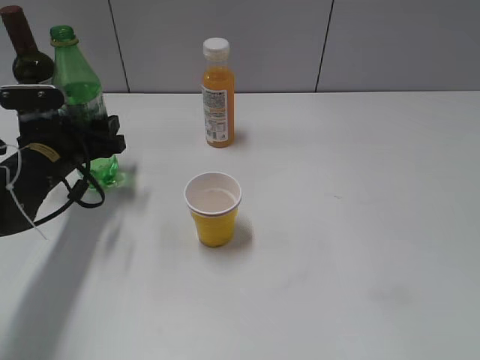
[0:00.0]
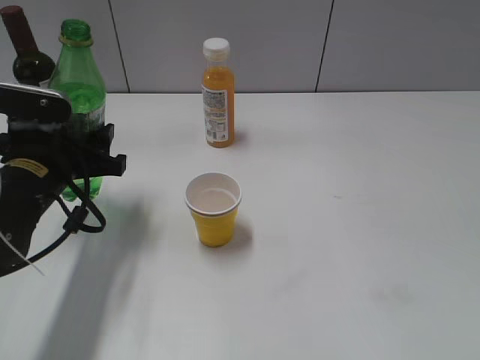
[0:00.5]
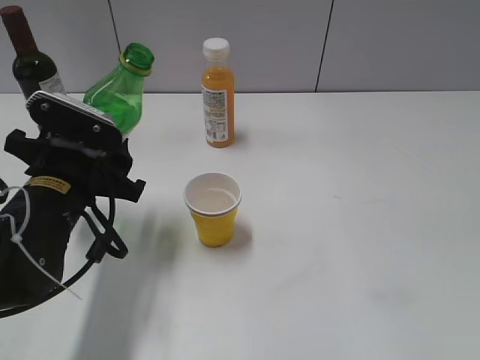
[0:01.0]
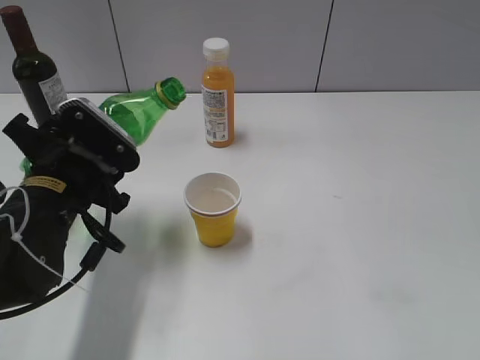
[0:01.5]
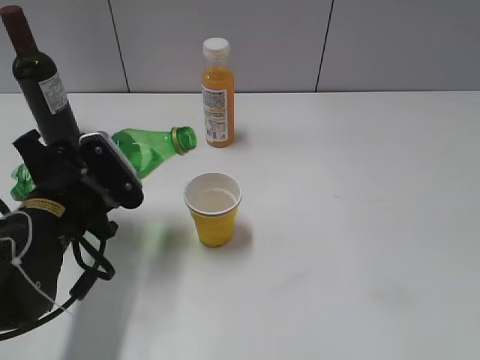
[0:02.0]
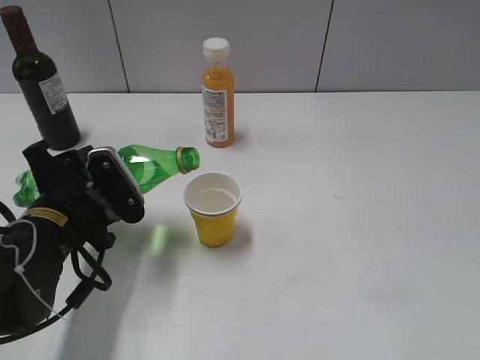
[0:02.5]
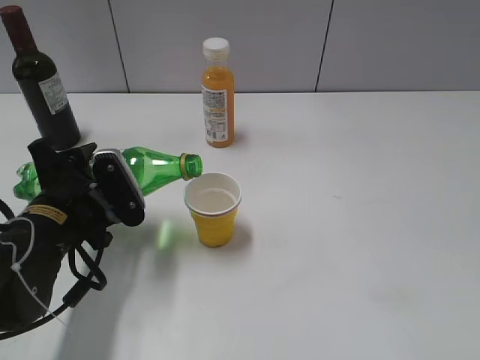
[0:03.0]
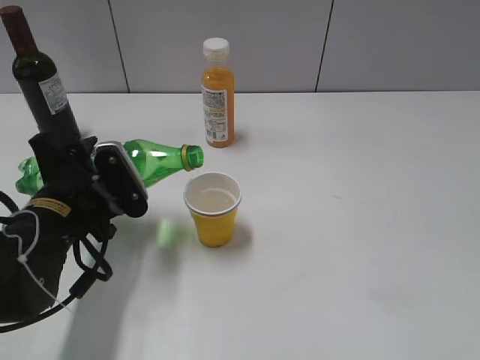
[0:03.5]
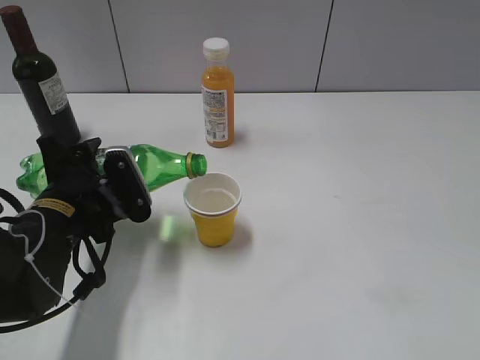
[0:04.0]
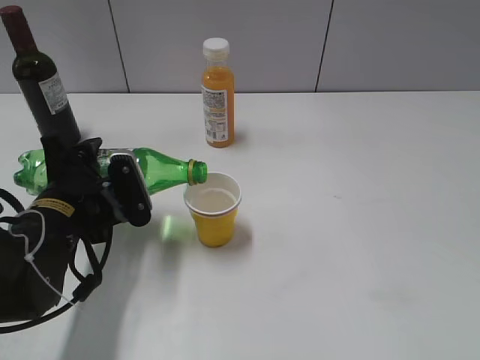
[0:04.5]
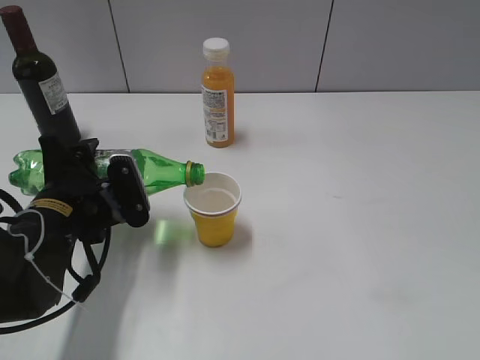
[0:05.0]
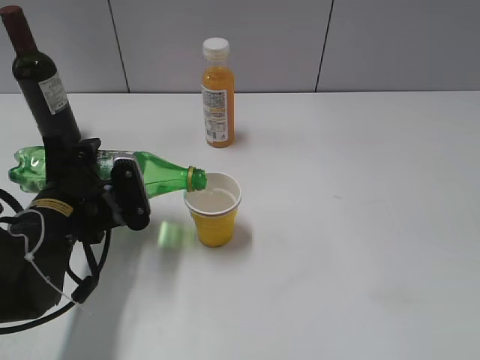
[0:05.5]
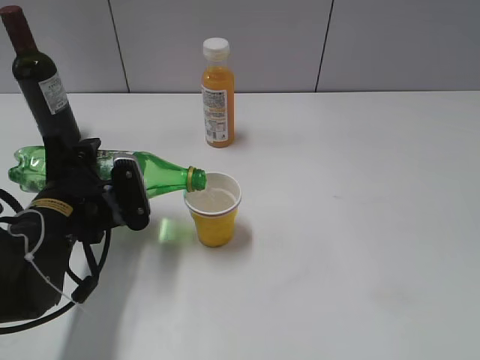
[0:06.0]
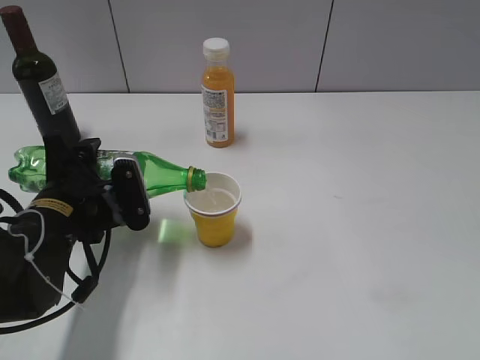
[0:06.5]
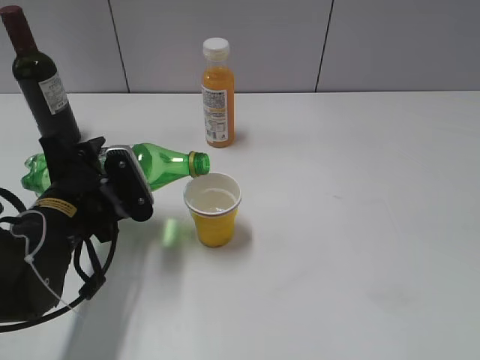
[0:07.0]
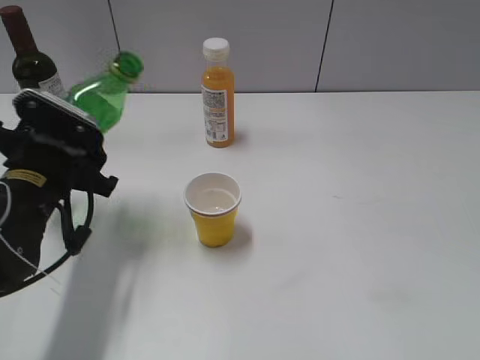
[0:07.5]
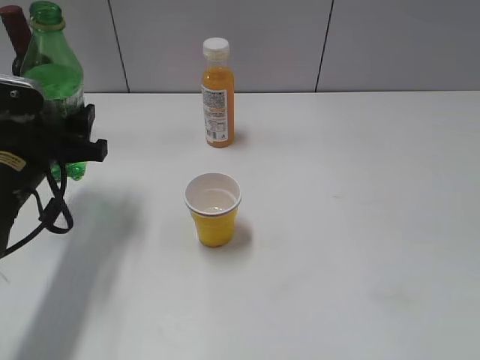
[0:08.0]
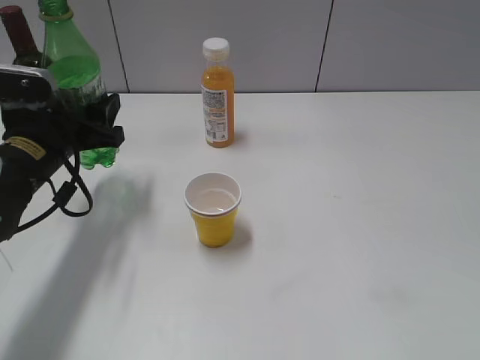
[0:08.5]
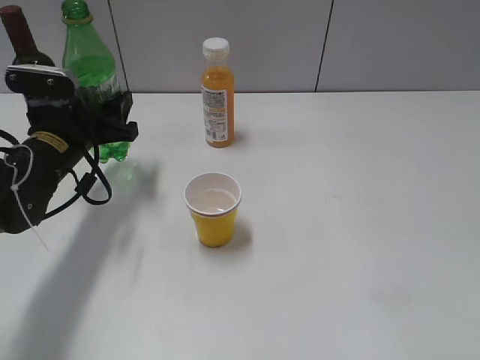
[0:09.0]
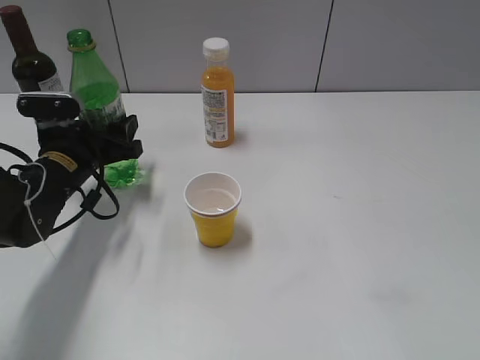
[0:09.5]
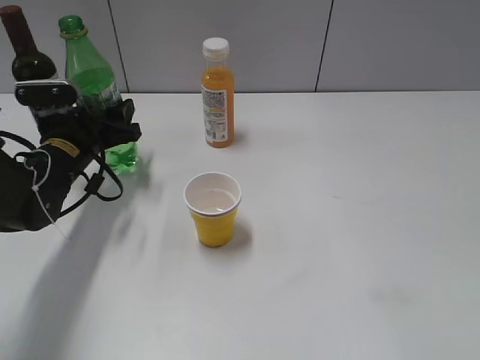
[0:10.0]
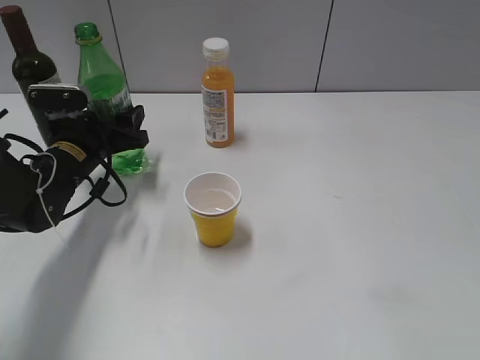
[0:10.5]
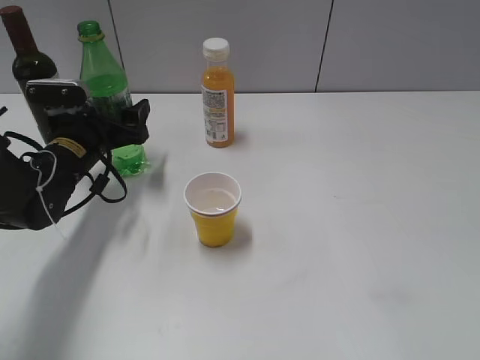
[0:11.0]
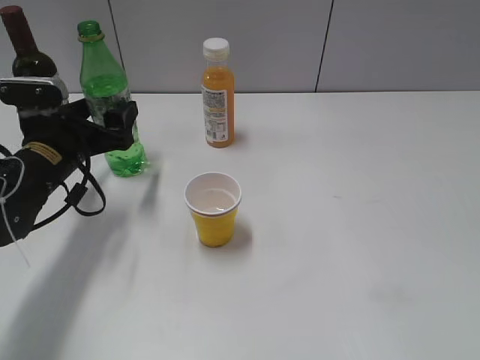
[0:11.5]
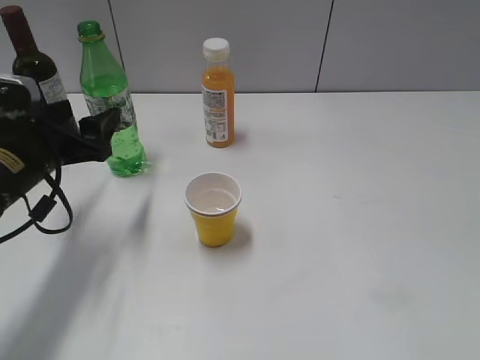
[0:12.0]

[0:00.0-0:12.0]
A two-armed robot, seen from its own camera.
Step, 0:00.0 to 0:07.0: Pour the sprite from bottle to cup with left gripper.
Step, 0:07.5 to 0:11.5: Place the sprite bottle on the table with left gripper.
0:00.0 to 0:02.0: The left gripper is displaced backward by about 10 cm.
0:02.0 to 0:04.0: The grippers stay close to where they were, moving slightly.
0:04.0 to 0:06.0: The grippers make only small movements.
0:06.0 to 0:08.0: The left gripper changes place by roughly 5 cm.
0:08.0 to 0:10.0: The left gripper heads forward and downward, covering roughly 10 cm.
0:10.0 to 0:12.0: The left gripper shifts approximately 10 cm backward and upward, and opens up.

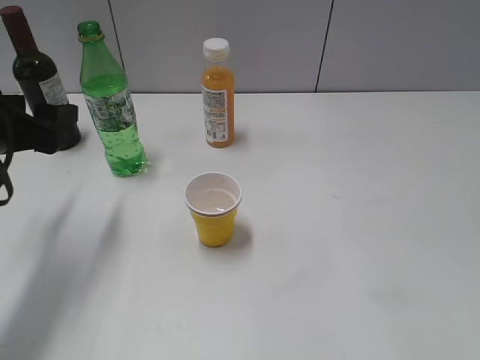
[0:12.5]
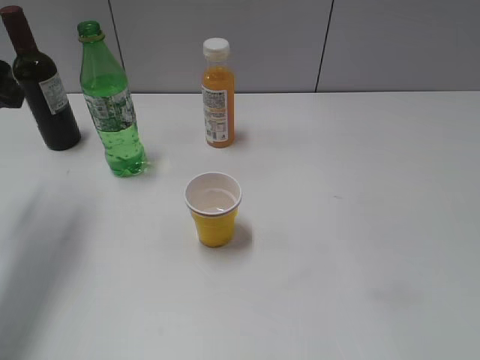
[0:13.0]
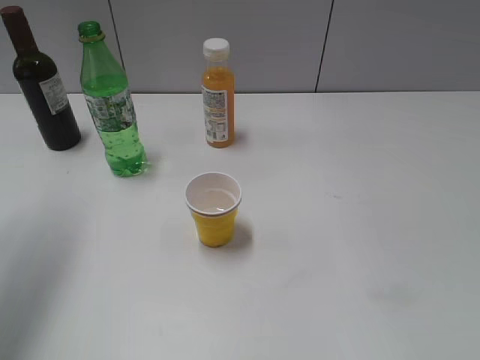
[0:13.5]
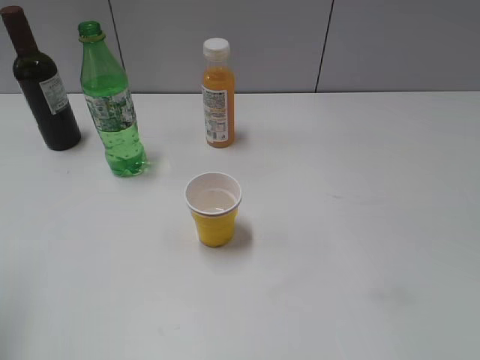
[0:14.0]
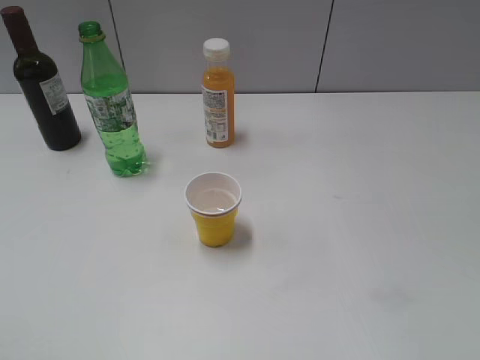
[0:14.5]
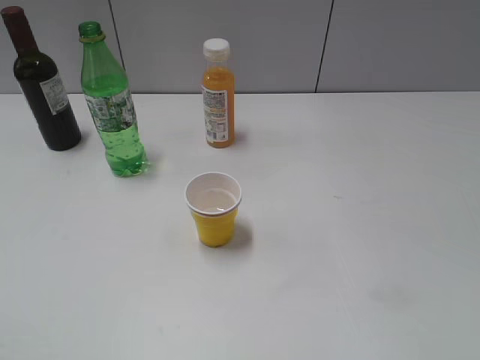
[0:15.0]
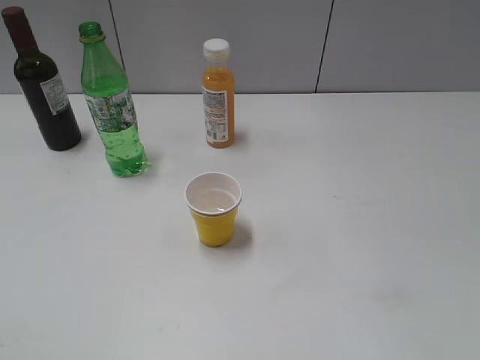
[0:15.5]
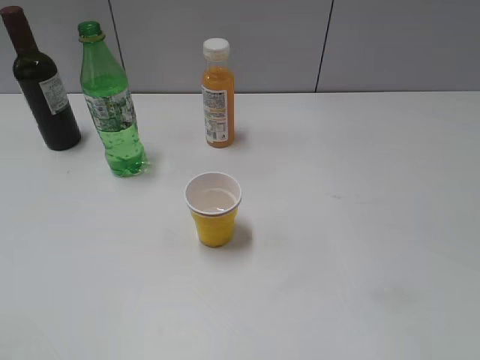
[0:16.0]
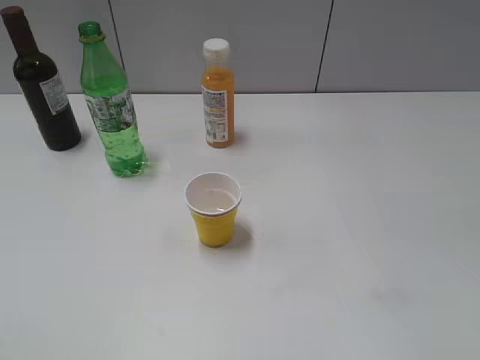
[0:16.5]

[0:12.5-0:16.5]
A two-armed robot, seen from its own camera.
0:12.5 to 0:14.5: The left gripper travels backward and upward by some 25 cm.

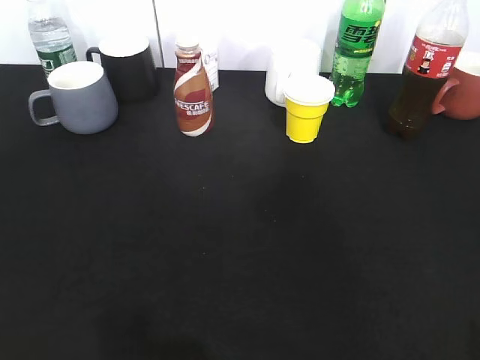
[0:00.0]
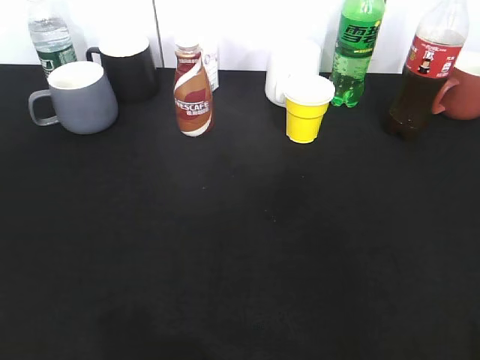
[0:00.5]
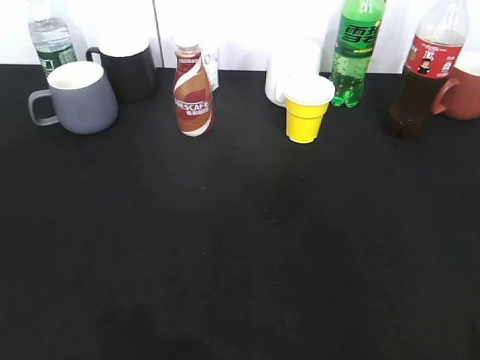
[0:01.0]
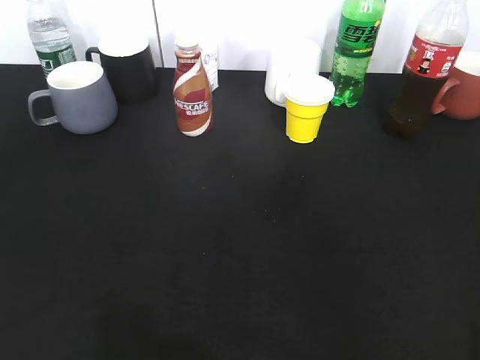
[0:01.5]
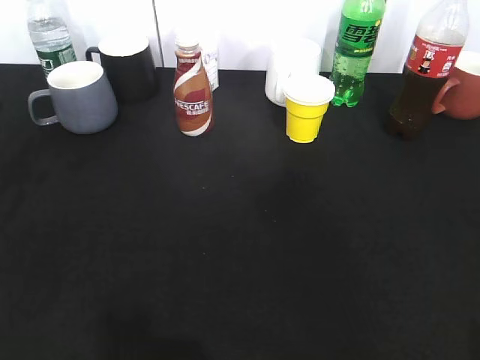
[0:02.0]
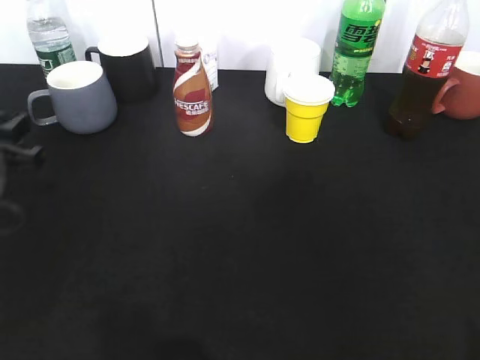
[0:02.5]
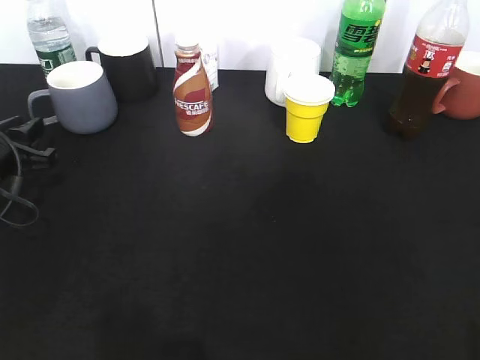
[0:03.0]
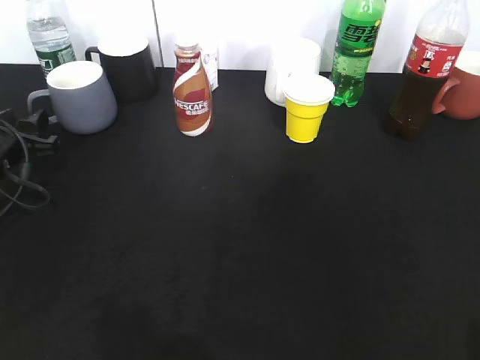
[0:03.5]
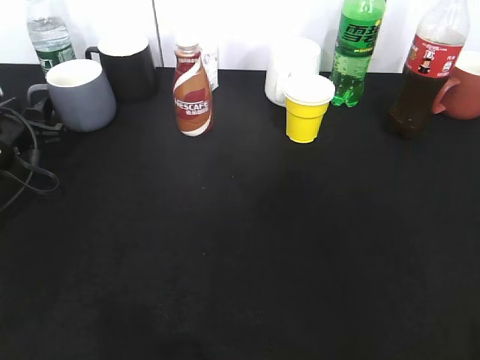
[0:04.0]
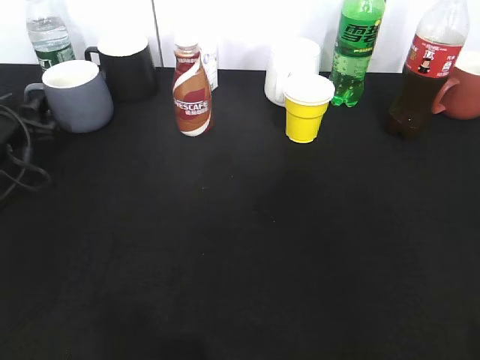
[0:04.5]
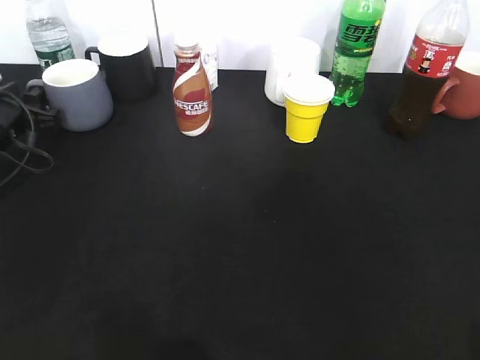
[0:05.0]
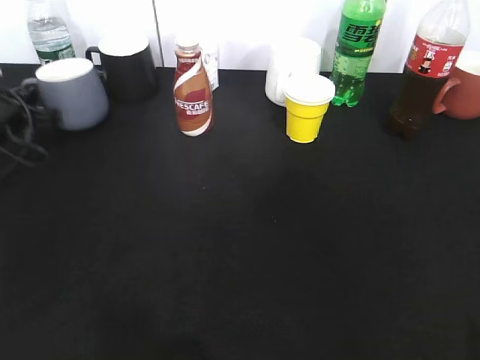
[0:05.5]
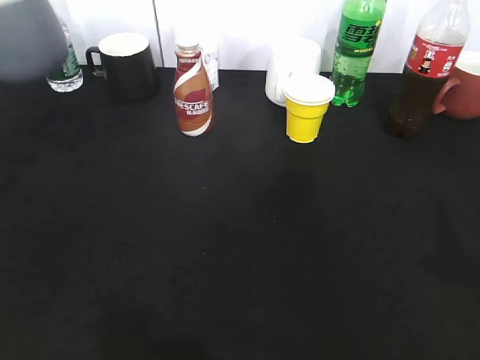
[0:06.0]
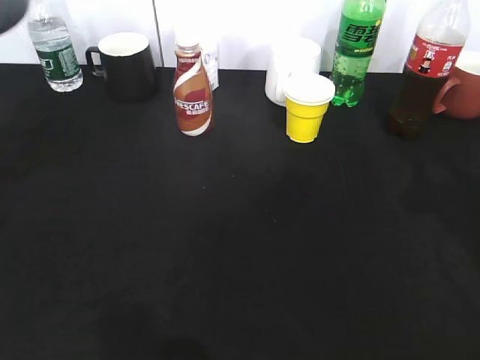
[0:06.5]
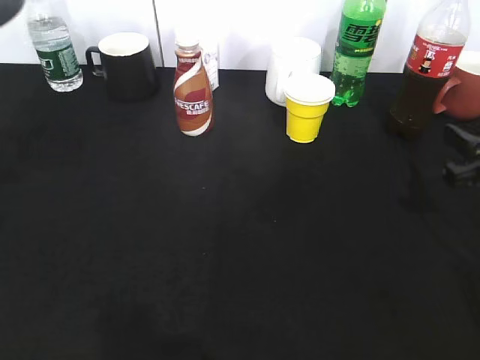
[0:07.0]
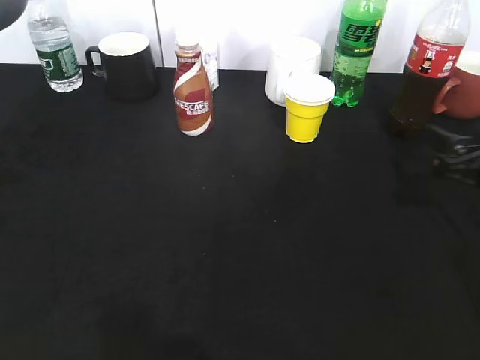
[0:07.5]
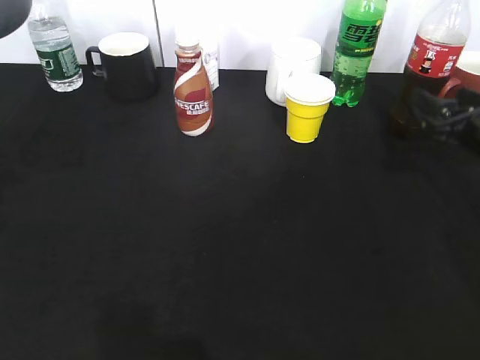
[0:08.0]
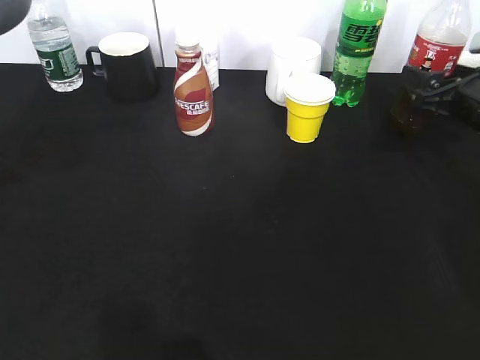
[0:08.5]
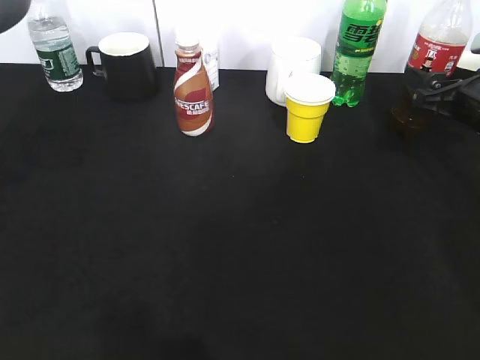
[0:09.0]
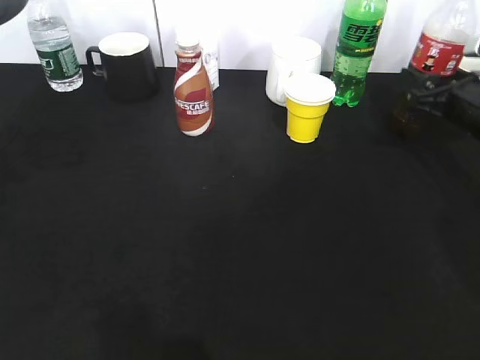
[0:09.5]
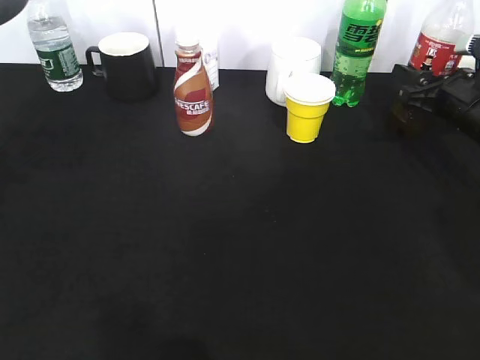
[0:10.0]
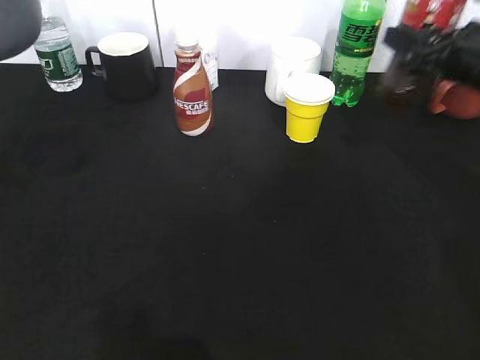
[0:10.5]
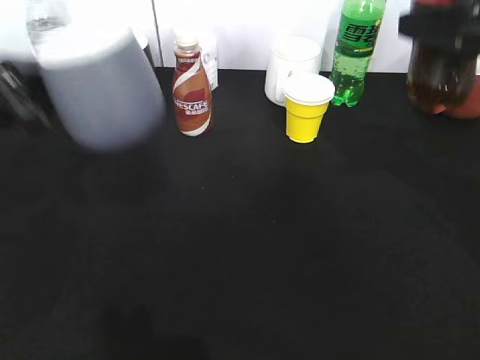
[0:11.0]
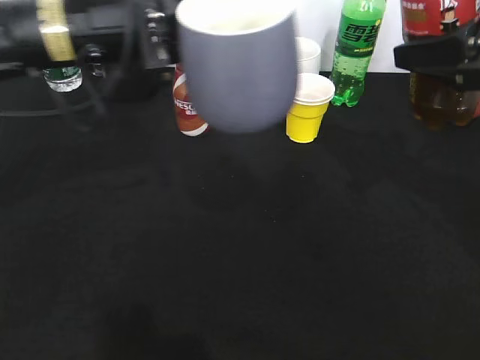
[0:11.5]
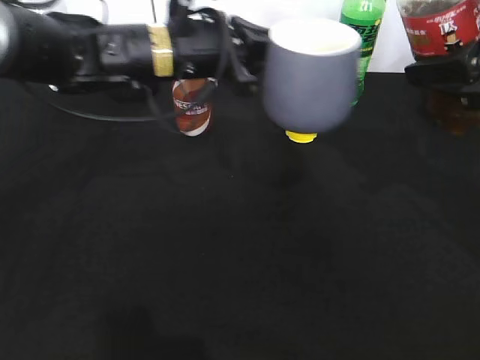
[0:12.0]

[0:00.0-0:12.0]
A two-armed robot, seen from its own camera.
Step, 0:01.5 to 0:05.5: Grasp the grey cup with left gripper.
Step, 0:06.5 to 0:09.0: Grasp the bottle with cola with right gripper.
0:02.0 to 0:04.0: The left gripper is displaced downward and forward by roughly 15 cm.
0:04.0 to 0:06.0: The left gripper is displaced upward and backward by some 20 cm, and closes its fingers.
0:06.0 to 0:08.0: The left gripper goes about 10 cm upward and backward; the right gripper heads forward and downward, covering approximately 30 cm, and opens its fingers.
0:08.0 to 0:10.0: The right gripper moves forward, approximately 5 cm, and closes its fingers.
0:10.0 to 0:12.0: The left gripper shifts some 30 cm to the right, forward and downward. The right gripper travels upward and backward by about 20 cm.
